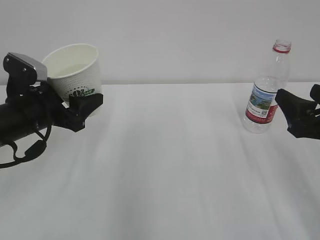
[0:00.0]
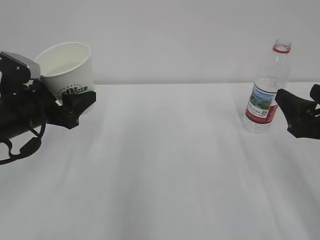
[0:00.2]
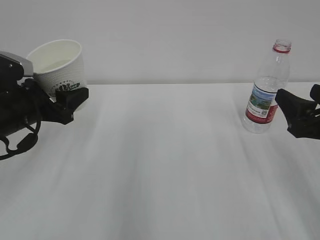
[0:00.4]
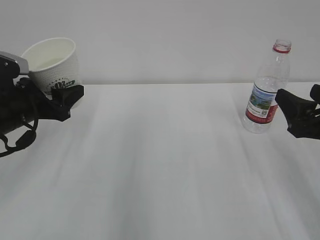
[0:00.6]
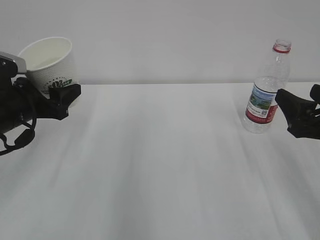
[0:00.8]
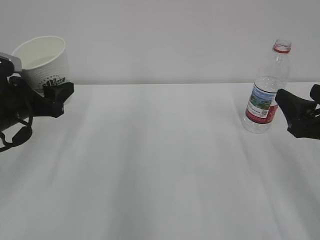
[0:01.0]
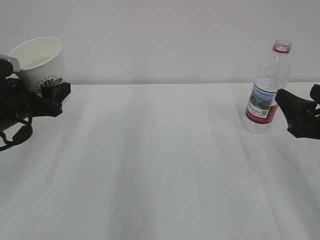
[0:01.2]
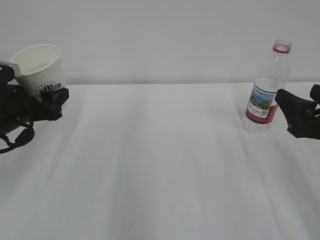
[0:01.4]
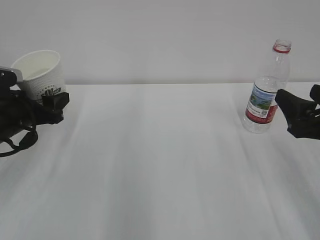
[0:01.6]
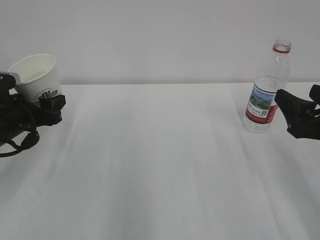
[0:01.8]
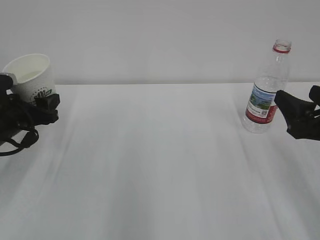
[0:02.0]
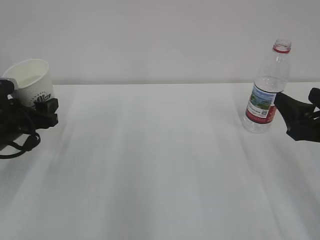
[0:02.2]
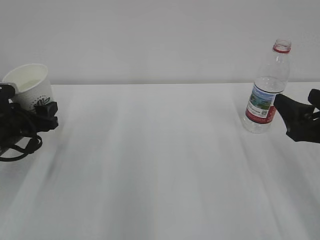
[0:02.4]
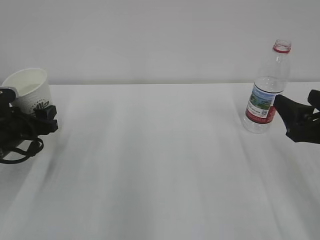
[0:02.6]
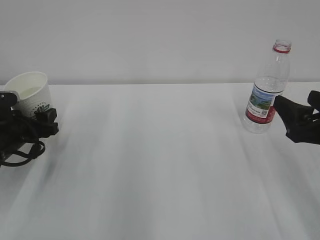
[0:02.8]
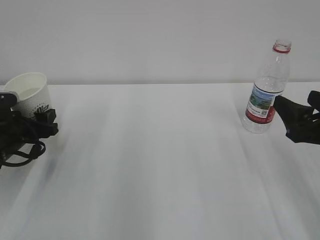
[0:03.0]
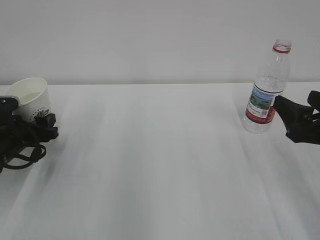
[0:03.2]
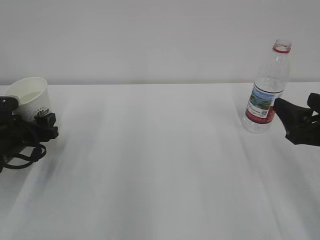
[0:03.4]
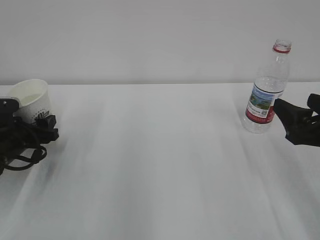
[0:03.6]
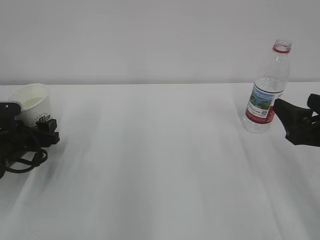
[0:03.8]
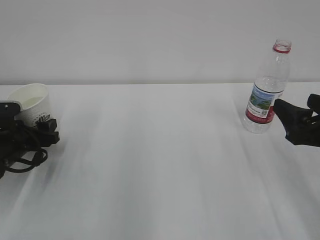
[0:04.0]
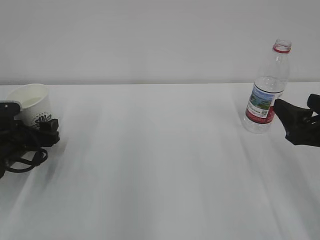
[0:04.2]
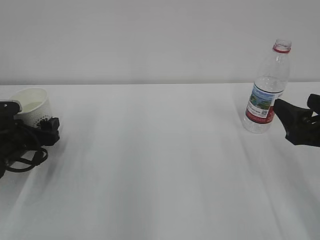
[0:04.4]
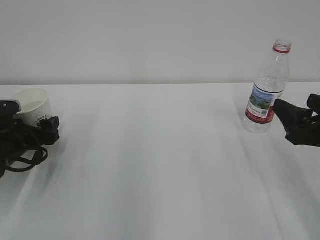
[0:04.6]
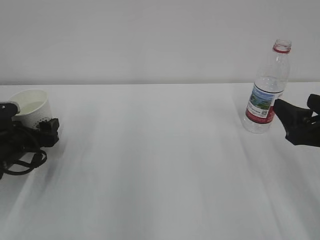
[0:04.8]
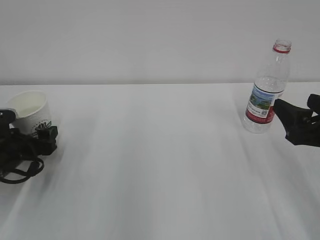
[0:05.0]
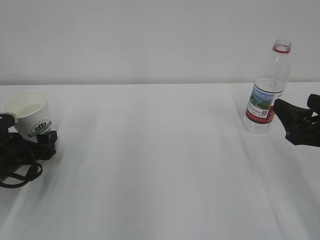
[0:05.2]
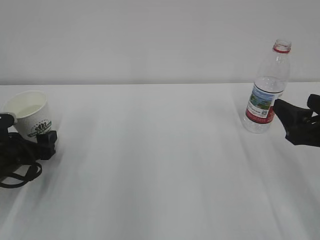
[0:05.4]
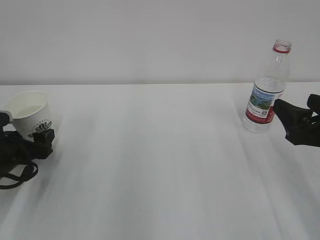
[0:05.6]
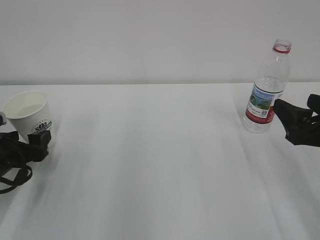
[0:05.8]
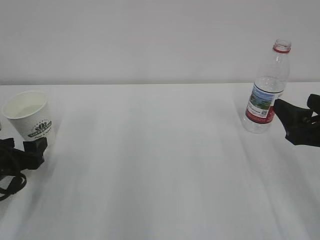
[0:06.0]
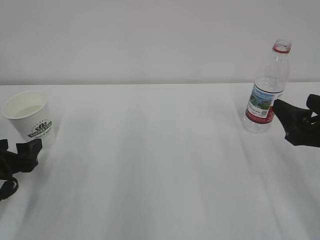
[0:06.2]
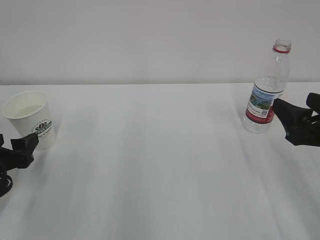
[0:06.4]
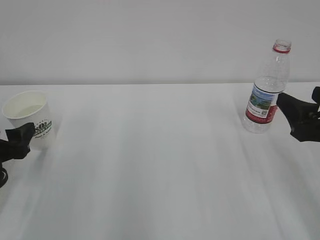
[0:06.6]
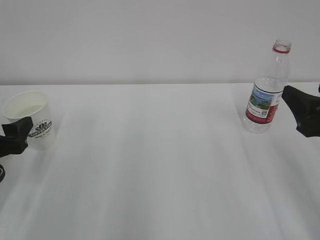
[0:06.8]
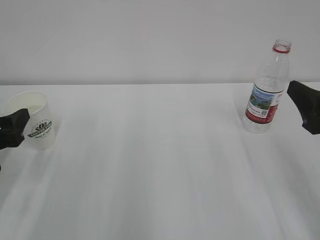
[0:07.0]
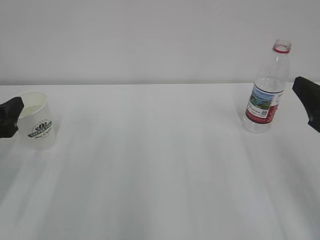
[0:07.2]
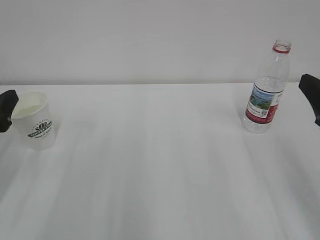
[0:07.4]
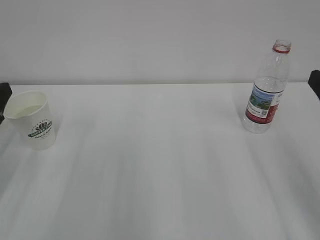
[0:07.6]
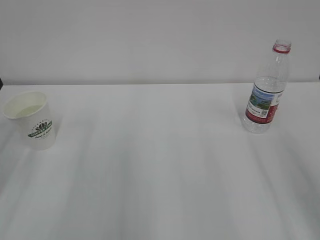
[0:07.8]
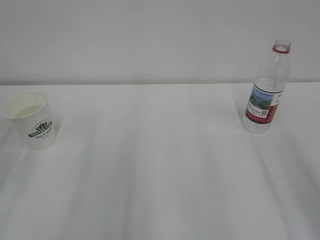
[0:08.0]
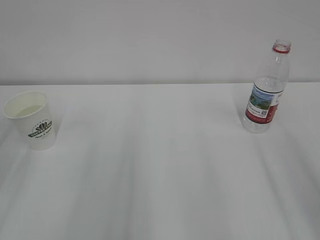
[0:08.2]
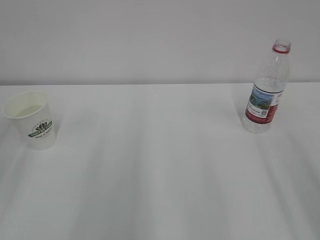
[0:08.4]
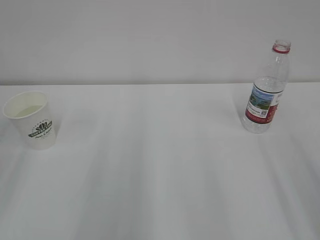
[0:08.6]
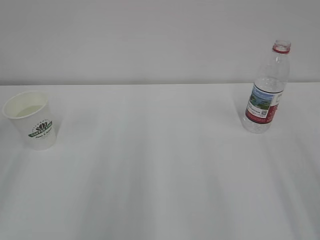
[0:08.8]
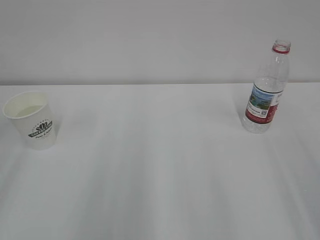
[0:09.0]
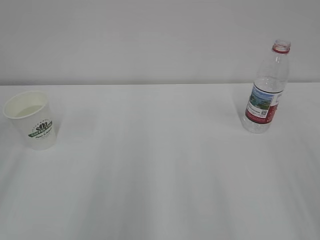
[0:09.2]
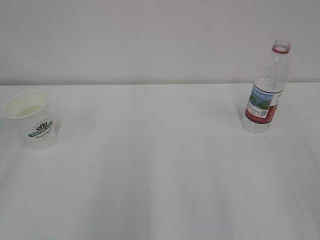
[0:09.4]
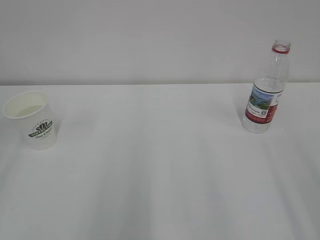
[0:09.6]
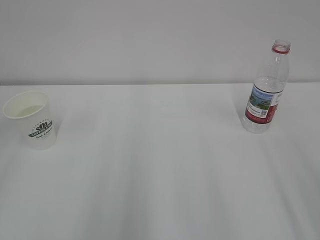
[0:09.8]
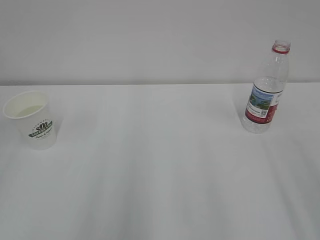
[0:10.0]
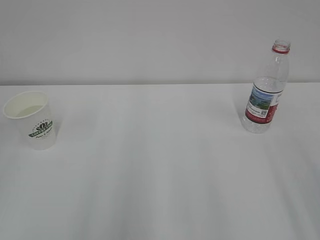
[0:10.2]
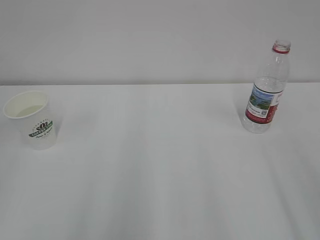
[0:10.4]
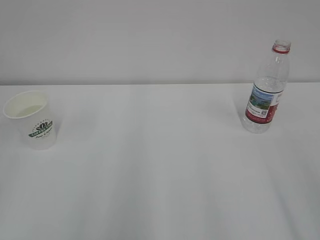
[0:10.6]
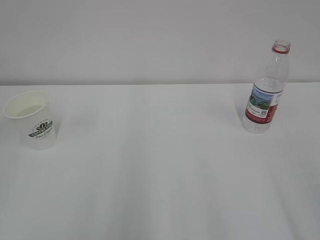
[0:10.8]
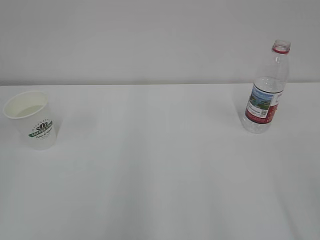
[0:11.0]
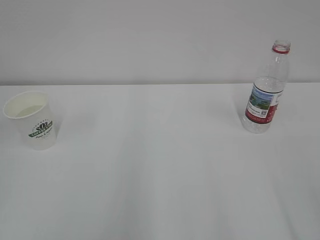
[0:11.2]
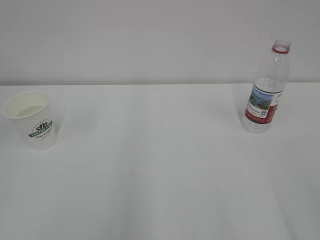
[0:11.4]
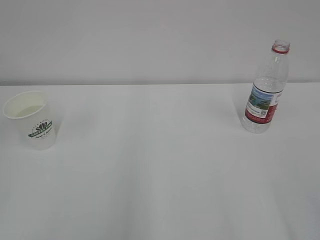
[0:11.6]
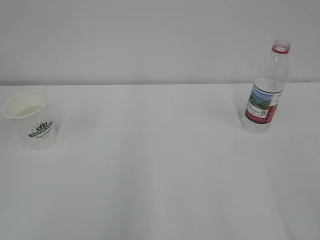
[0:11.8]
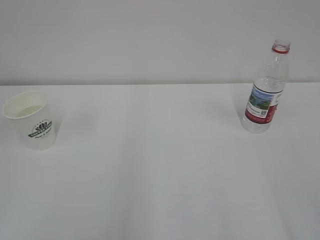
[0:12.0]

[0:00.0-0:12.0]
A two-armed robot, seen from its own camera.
0:00.0 to 0:01.6: The left gripper is displaced to the left by about 5 cm.
0:01.6 to 0:03.0: The left gripper moves downward, approximately 5 cm.
0:03.0 to 0:04.4: The left gripper opens its fingers.
0:04.4 to 0:06.0: The left gripper shifts some 5 cm backward.
0:06.0 to 0:07.6: The left gripper is displaced upward by about 10 cm, while the right gripper travels upward by approximately 5 cm.

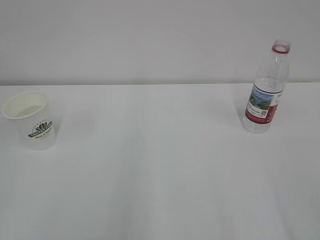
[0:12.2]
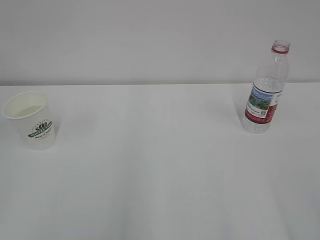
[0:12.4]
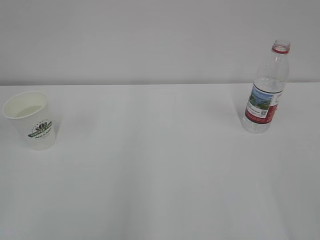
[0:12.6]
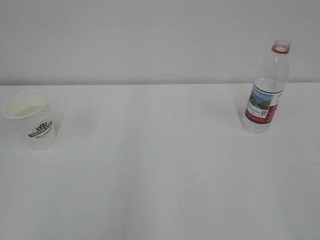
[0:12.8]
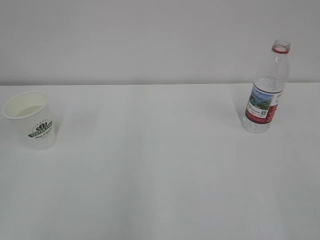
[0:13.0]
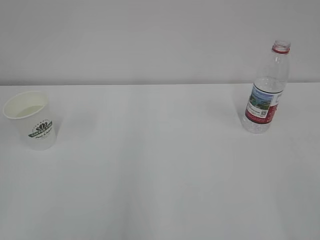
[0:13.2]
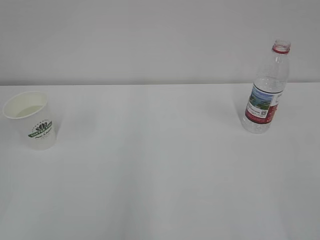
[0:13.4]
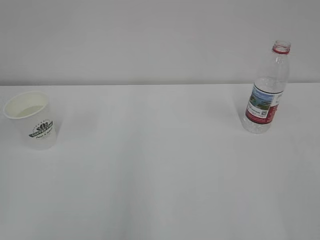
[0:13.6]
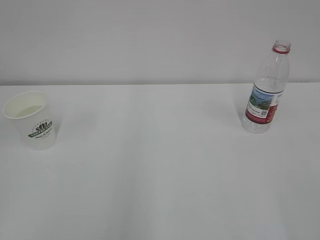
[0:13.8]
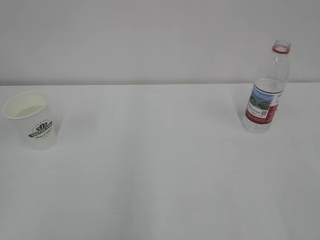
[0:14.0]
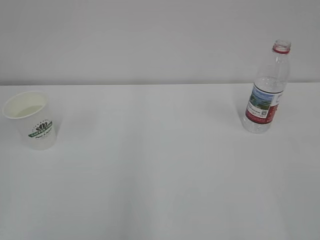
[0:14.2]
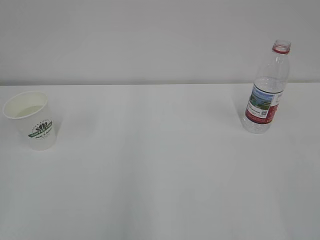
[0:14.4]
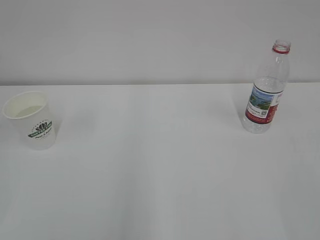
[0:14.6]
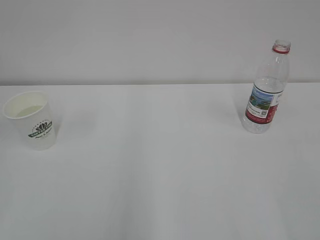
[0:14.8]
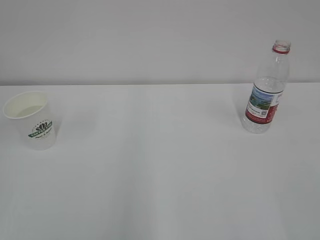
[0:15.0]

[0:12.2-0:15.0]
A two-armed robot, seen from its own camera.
0:13.6 to 0:15.0: Both grippers stay about where they are.
